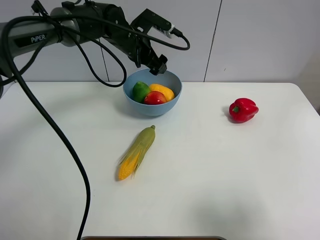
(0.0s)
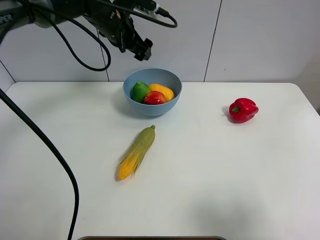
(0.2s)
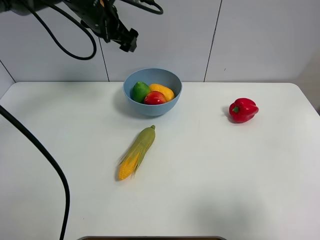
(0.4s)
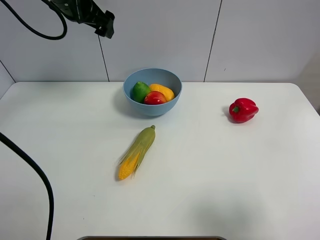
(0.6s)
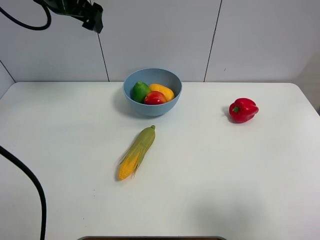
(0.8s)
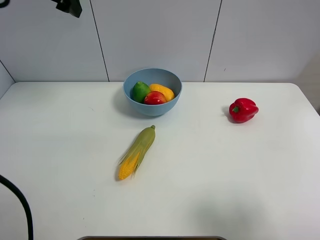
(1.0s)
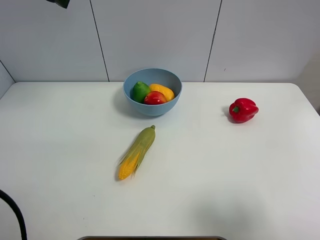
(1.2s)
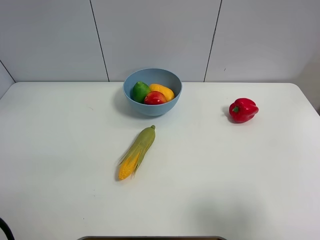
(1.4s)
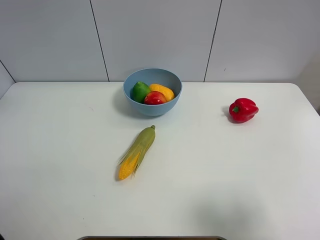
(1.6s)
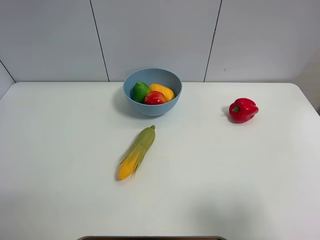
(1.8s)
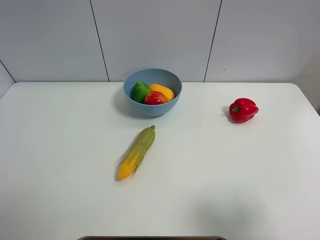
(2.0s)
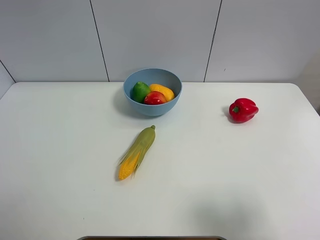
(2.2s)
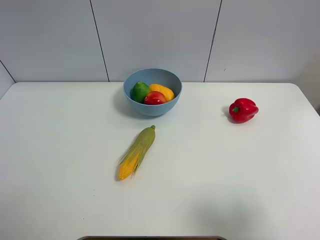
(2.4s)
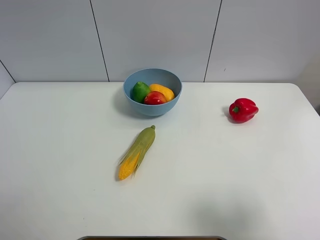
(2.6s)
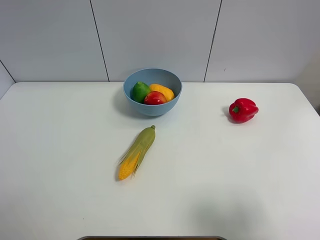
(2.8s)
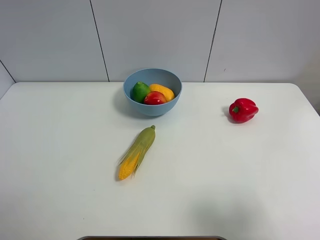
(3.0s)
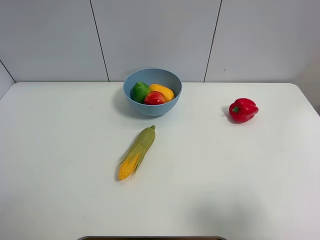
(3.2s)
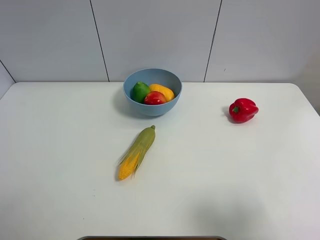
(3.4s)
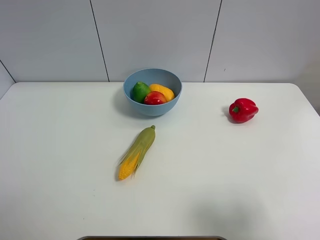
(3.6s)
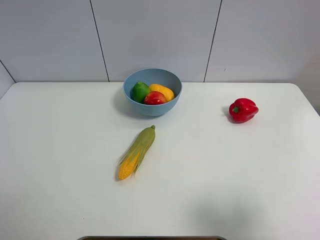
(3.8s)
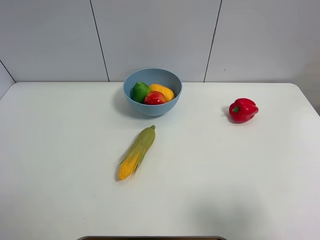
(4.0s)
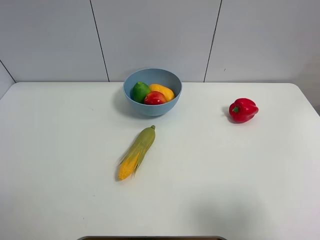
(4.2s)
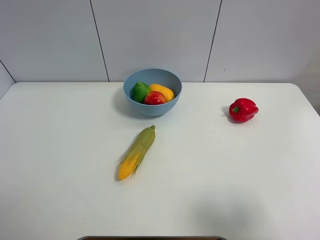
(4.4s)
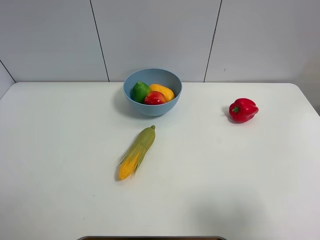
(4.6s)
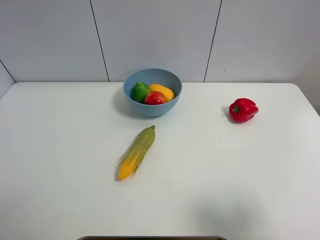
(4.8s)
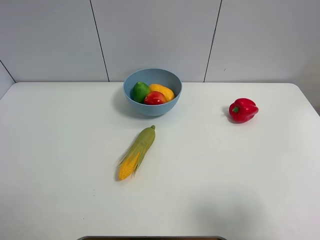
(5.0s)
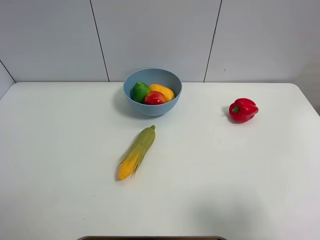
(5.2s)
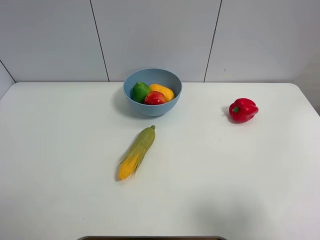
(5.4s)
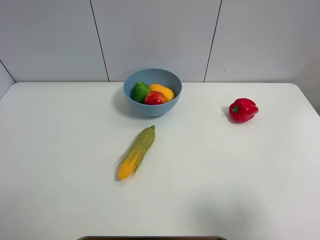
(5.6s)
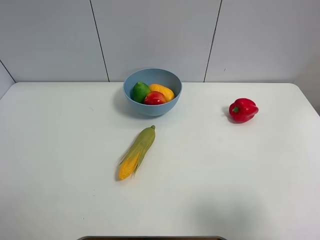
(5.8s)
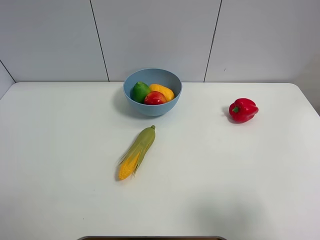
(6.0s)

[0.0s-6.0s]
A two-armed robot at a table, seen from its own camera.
Task of the whole recording: Put the three fruits on the table into a bowl.
0.0s to 1.6s: The left gripper moves upward, to the left and backward, about 35 cm.

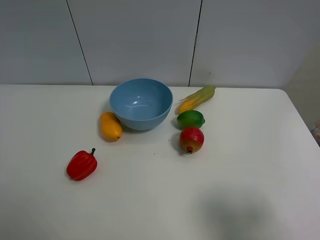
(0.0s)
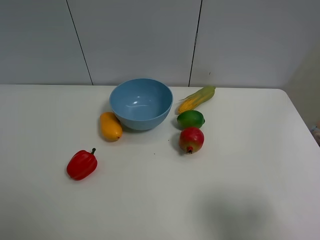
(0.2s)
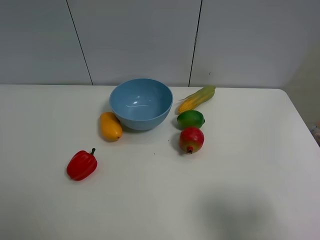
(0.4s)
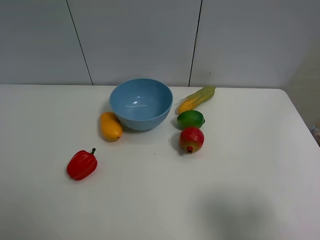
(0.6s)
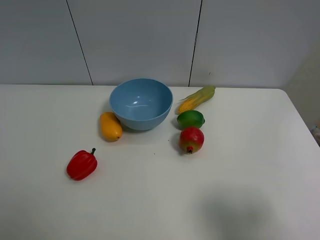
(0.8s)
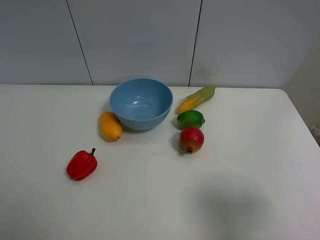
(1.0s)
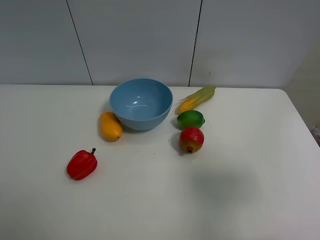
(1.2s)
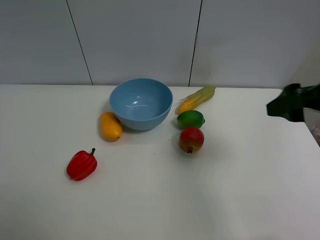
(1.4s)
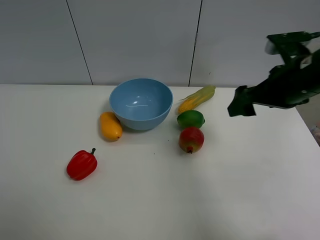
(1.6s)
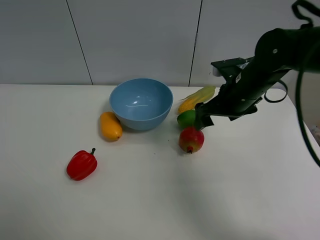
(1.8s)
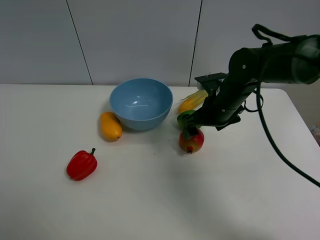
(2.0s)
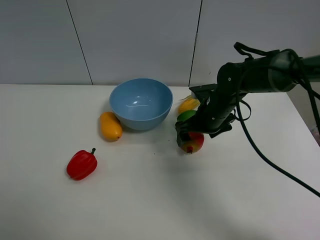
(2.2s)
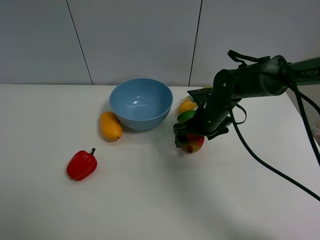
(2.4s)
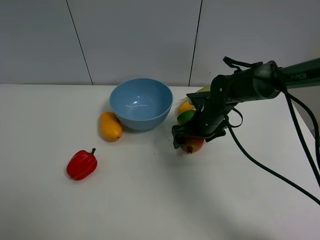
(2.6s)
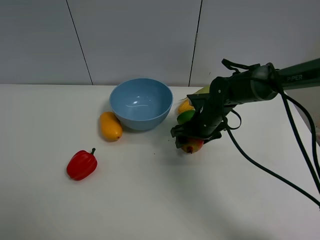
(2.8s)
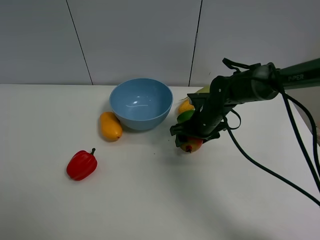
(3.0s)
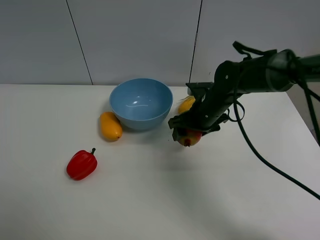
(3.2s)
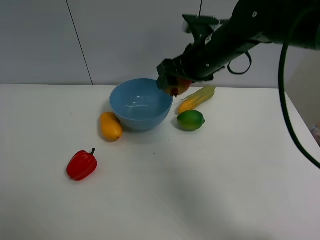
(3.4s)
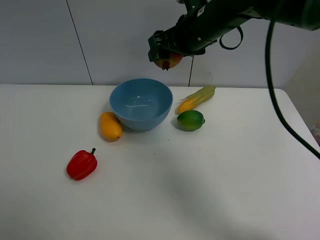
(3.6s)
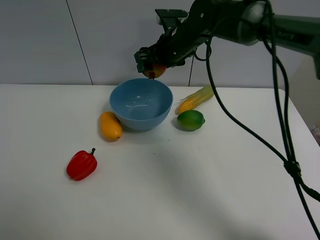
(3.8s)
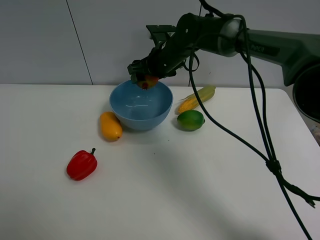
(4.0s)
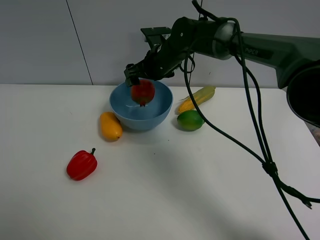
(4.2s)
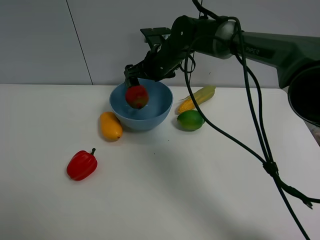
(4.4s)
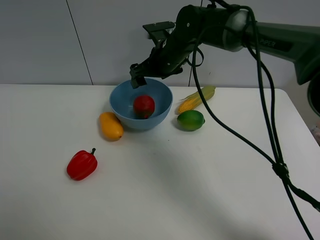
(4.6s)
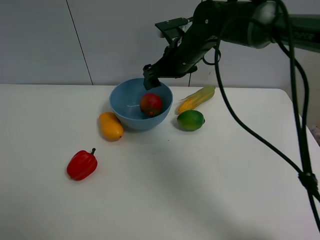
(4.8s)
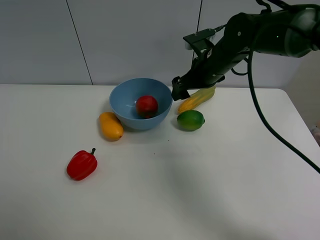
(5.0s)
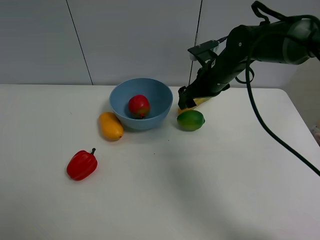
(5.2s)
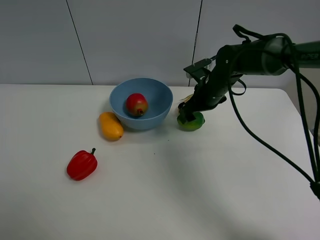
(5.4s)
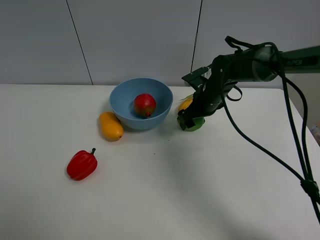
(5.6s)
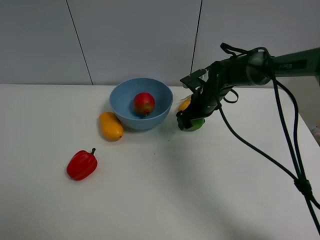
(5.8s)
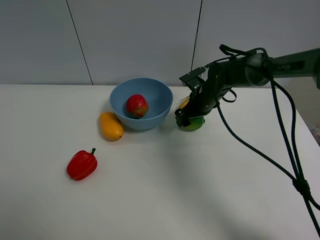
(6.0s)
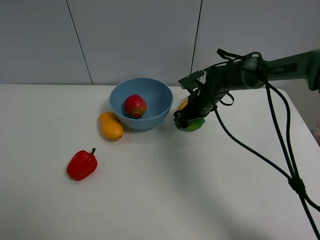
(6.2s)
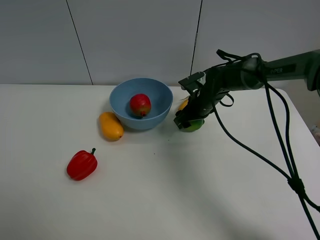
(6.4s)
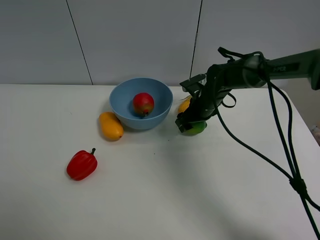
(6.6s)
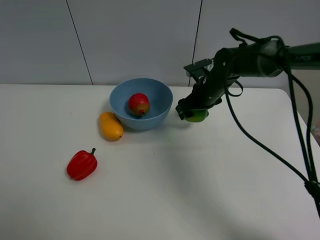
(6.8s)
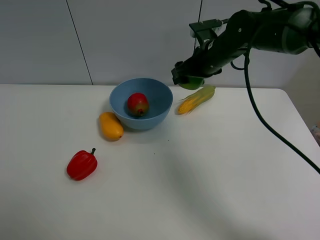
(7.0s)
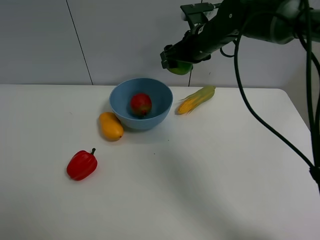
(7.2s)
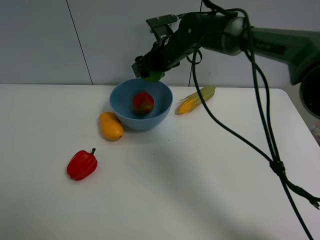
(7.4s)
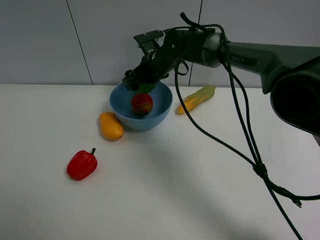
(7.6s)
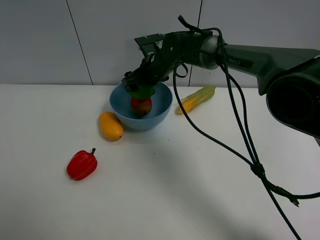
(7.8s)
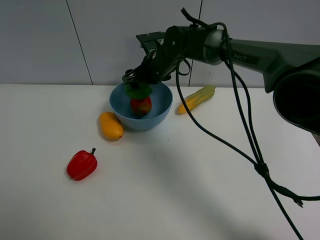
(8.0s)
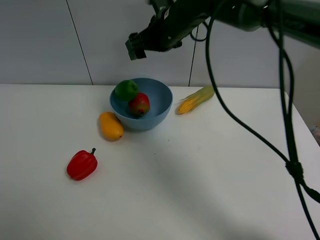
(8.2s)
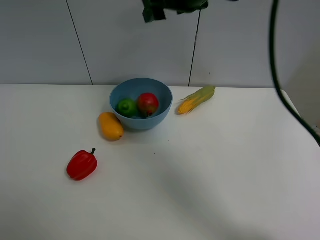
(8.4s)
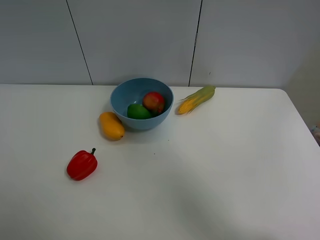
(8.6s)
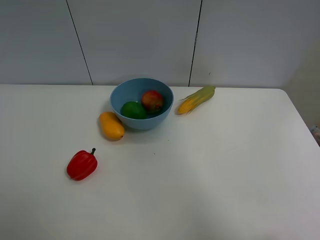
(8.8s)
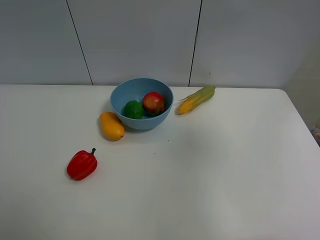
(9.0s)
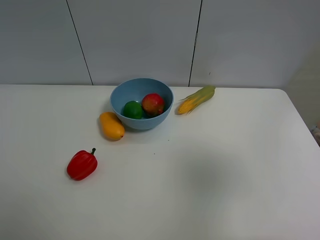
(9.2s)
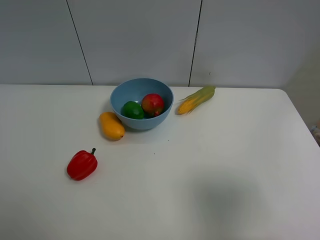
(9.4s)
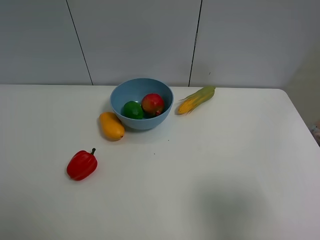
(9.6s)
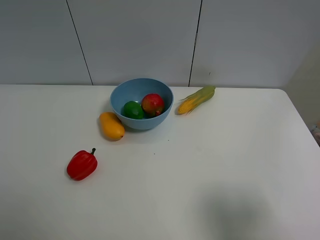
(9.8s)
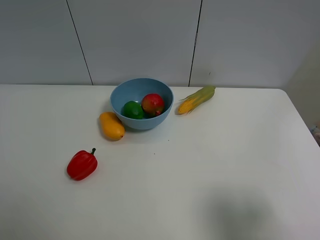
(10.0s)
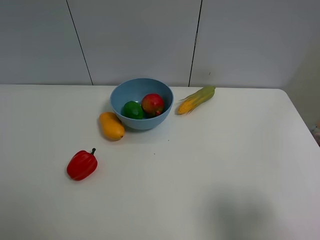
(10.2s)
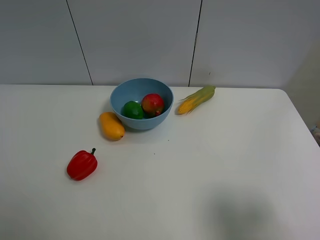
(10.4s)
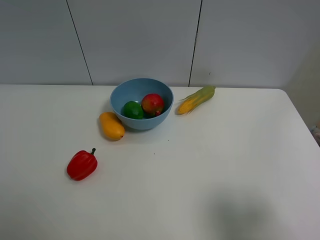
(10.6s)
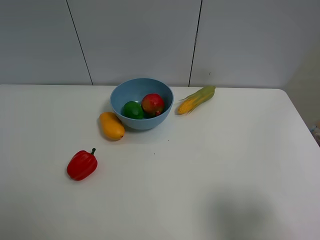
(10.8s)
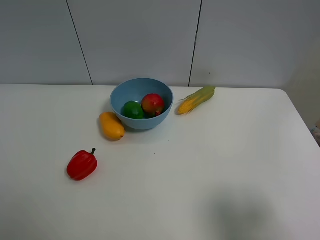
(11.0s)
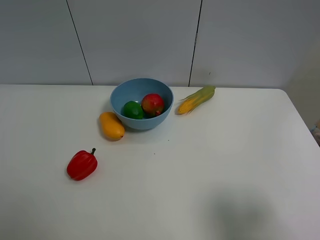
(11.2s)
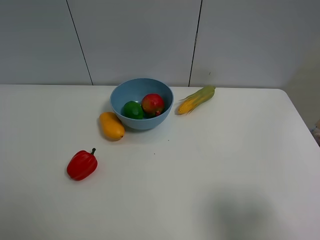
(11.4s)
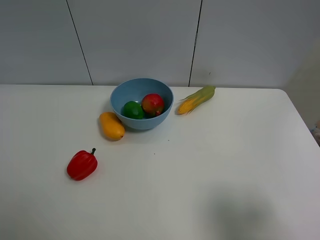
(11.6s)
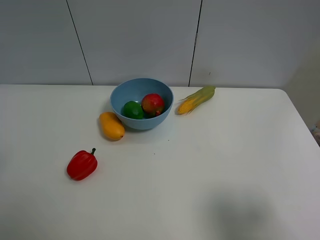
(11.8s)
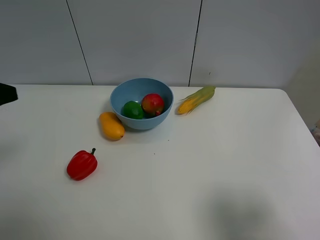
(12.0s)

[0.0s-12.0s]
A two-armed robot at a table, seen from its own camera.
Task of the whole recording: Put the three fruits on the table into a bowl.
Step, 0.0s to 2.8s: Grasp the pomegranate with right gripper.
Step, 3.0s to 4.2s: Place the pomegranate in the blue bowl with right gripper.
Step, 4.4s to 6.4s: Grasp the green lemon with right gripper.
Step, 6.6s to 8.0s: Place the green lemon in the blue bowl with right gripper.
0.0s to 1.6s: The right gripper heads forward, covering approximately 25 cm.
1.6s to 3.0s: The right gripper moves downward, to the left and forward, approximately 20 cm, and closes.
3.0s to 4.4s: The right gripper moves to the left, upward and forward, approximately 15 cm, and opens.
4.4s to 6.0s: The right gripper travels to the right and downward by roughly 15 cm.
6.0s to 7.6s: The right gripper heads to the left and upward, covering some 15 cm, and closes.
7.6s to 9.0s: The right gripper shifts approximately 50 cm backward, to the right and upward.
9.0s to 10.4s: The right gripper travels downward and backward by approximately 20 cm.

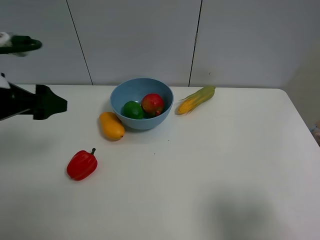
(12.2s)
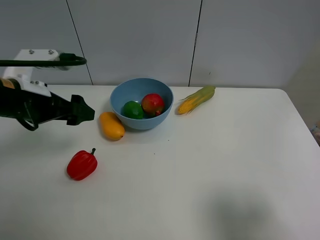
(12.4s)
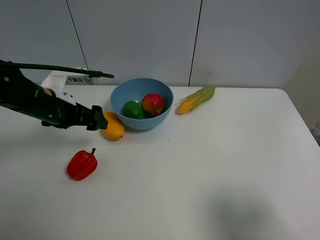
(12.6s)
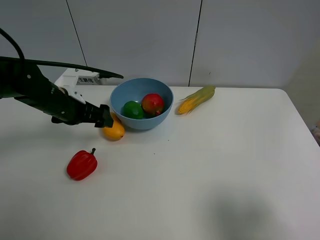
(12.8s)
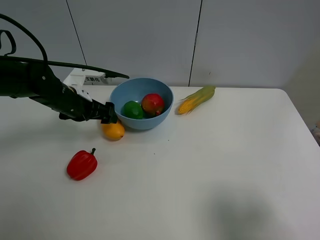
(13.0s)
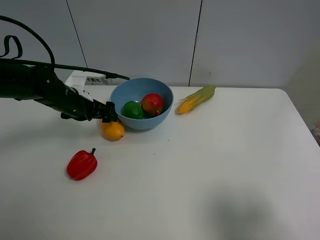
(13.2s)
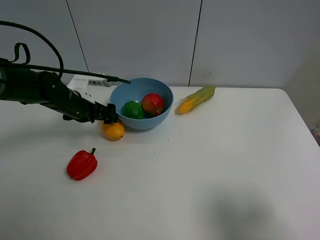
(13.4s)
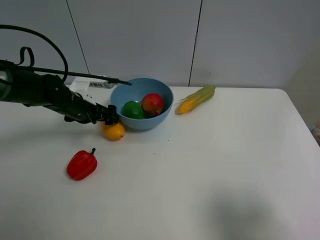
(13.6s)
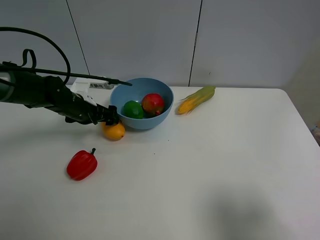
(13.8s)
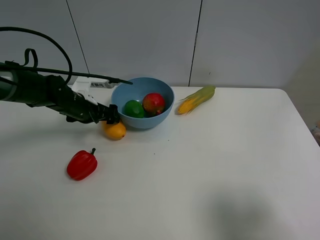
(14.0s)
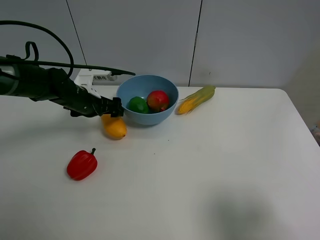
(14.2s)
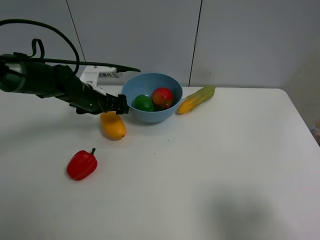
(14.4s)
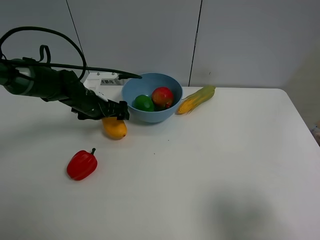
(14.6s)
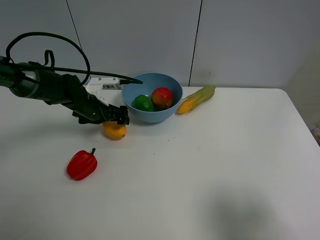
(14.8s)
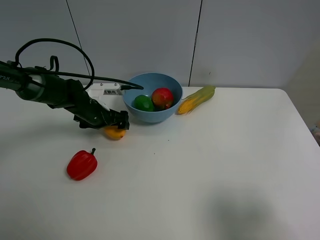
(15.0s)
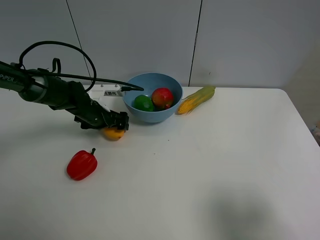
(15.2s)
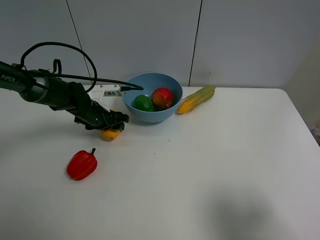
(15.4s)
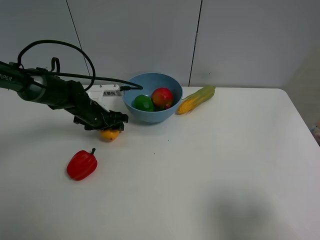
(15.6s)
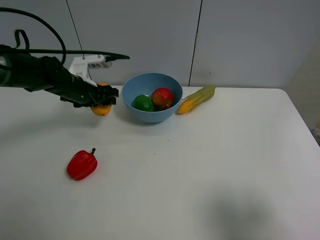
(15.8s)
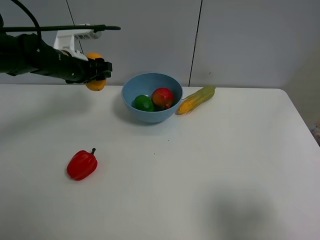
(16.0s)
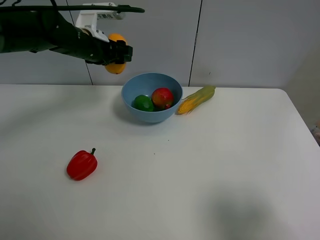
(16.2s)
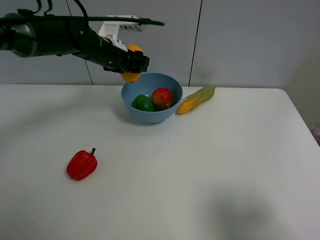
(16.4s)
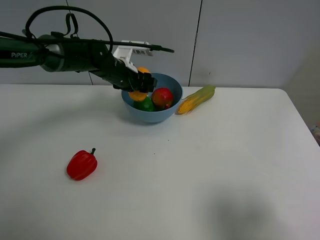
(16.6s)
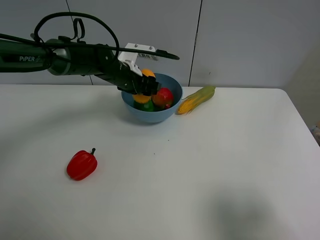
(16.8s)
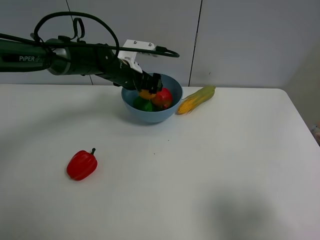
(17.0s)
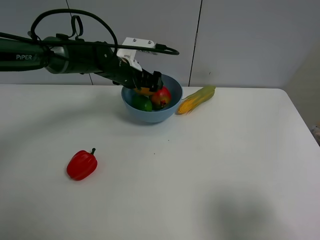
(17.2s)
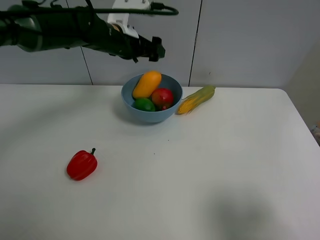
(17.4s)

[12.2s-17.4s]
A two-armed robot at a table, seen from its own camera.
Task of the whole recording: Put the three fruits on the table into a bowl.
Step, 12.2s to 15.4s: Grasp the mango with left gripper.
Step, 15.6s to 17.2s: Place the mango in the blue bowl with left gripper.
12.2s to 14.0s: The left gripper moves downward and forward, about 20 cm.
14.0s to 15.6s: The left gripper closes its fingers.
15.6s to 17.4s: The left gripper goes up and down, some 20 cm each way, reversing 2 times, and opens its fingers.
